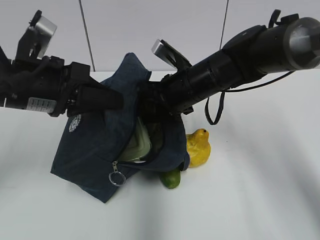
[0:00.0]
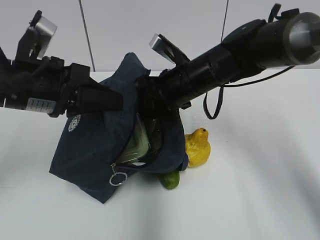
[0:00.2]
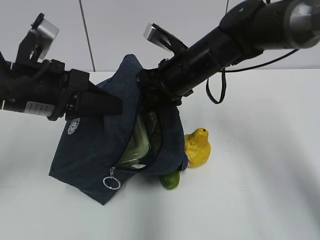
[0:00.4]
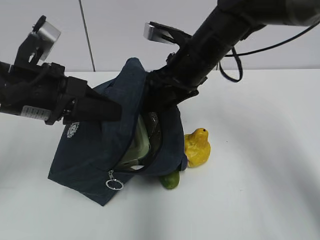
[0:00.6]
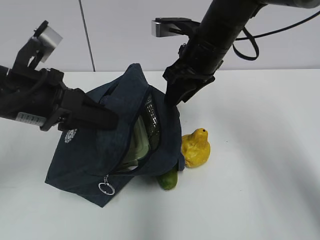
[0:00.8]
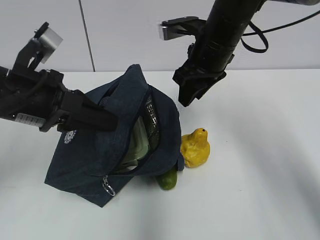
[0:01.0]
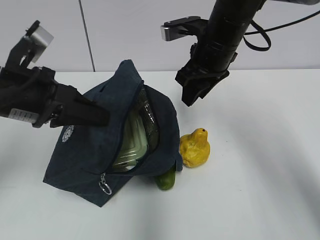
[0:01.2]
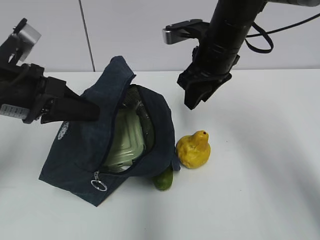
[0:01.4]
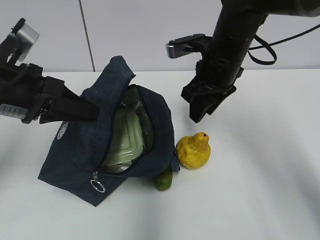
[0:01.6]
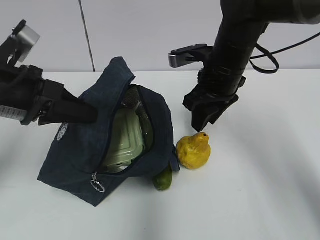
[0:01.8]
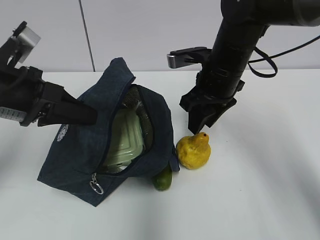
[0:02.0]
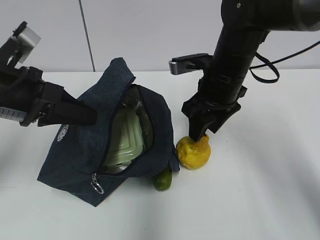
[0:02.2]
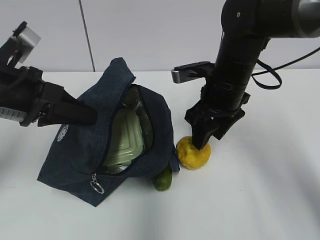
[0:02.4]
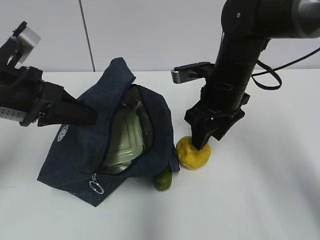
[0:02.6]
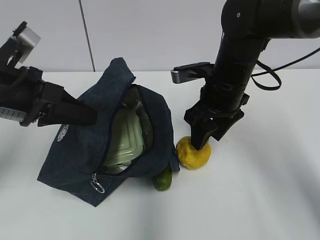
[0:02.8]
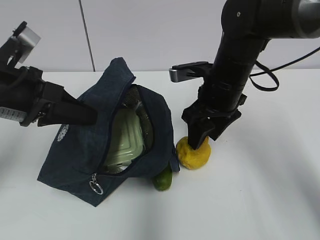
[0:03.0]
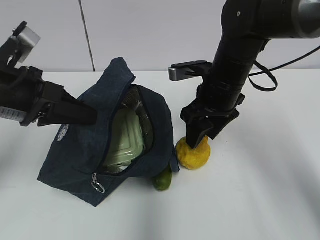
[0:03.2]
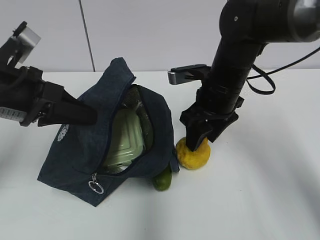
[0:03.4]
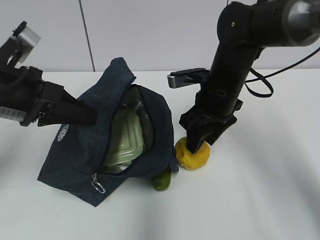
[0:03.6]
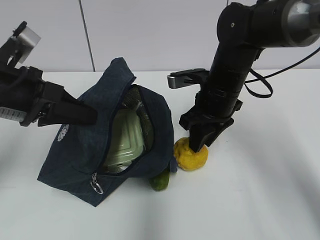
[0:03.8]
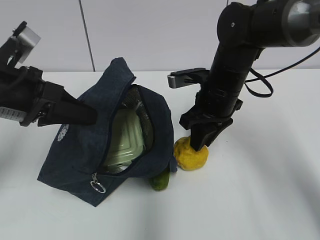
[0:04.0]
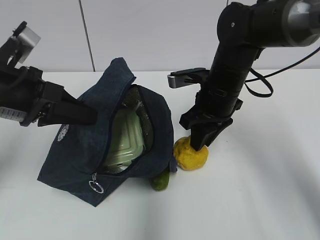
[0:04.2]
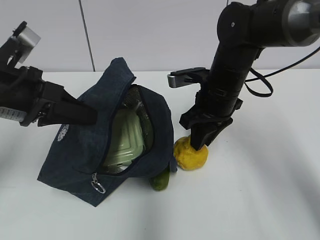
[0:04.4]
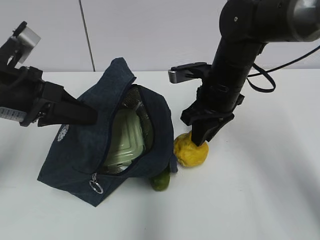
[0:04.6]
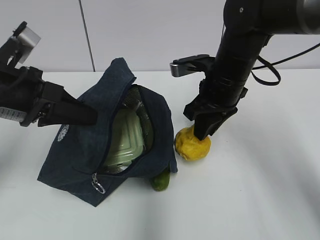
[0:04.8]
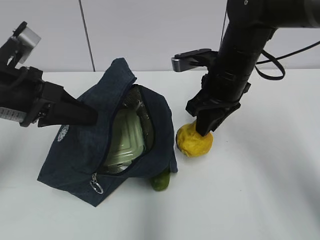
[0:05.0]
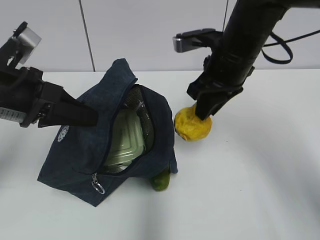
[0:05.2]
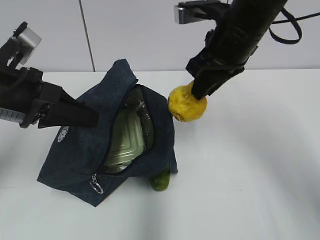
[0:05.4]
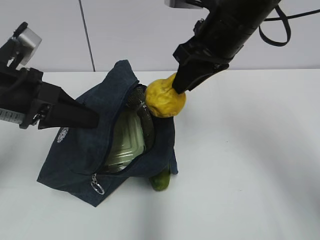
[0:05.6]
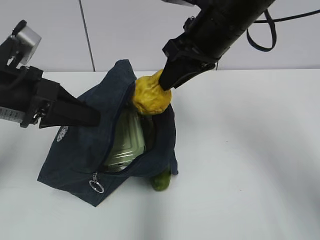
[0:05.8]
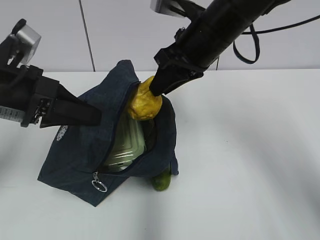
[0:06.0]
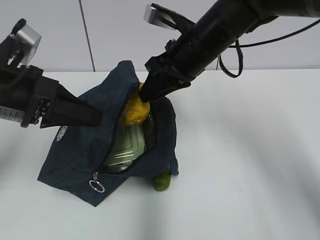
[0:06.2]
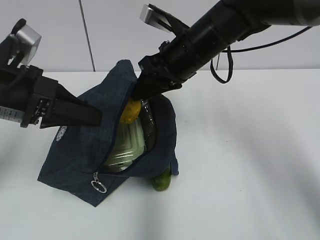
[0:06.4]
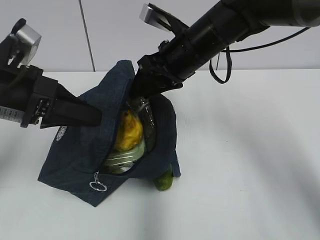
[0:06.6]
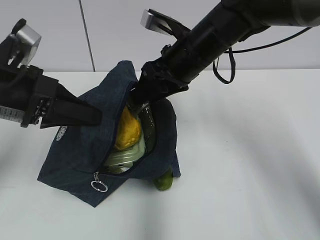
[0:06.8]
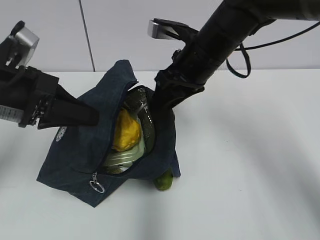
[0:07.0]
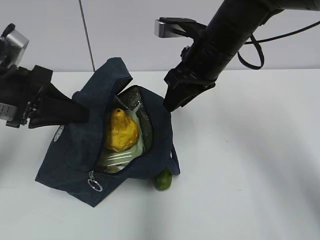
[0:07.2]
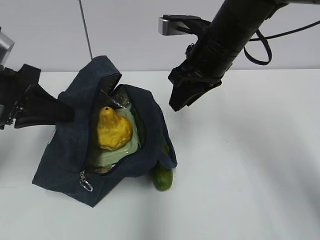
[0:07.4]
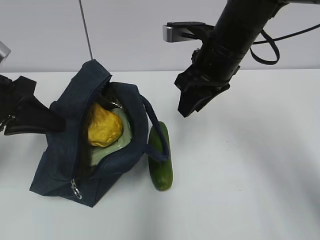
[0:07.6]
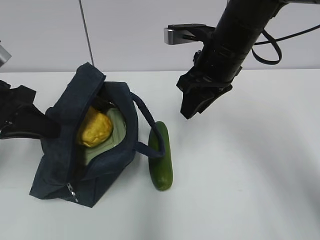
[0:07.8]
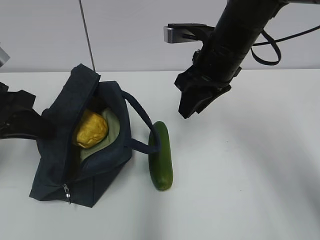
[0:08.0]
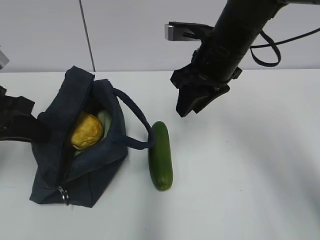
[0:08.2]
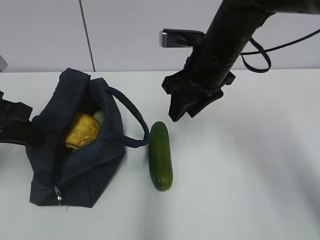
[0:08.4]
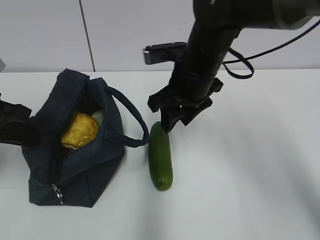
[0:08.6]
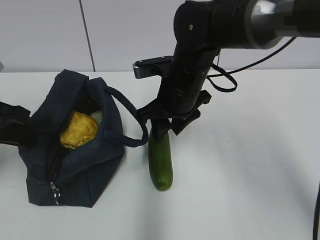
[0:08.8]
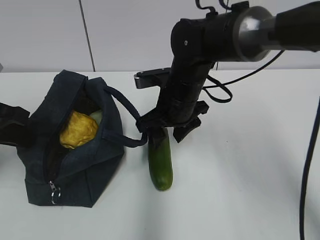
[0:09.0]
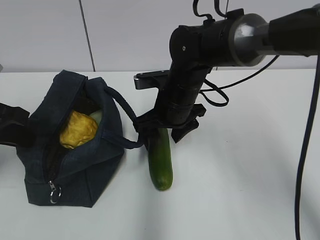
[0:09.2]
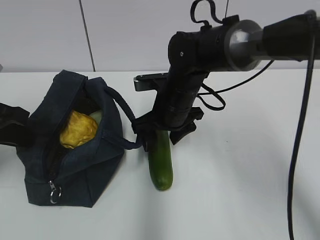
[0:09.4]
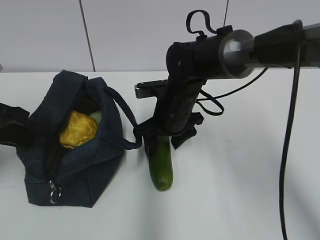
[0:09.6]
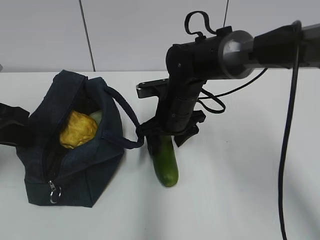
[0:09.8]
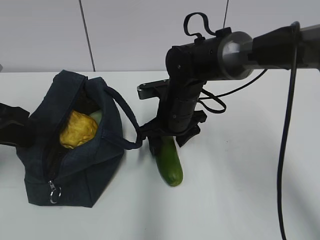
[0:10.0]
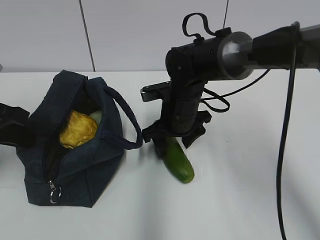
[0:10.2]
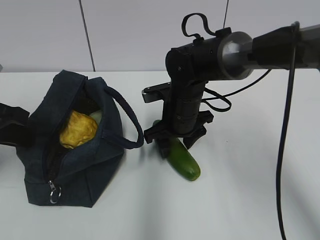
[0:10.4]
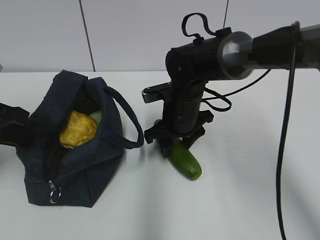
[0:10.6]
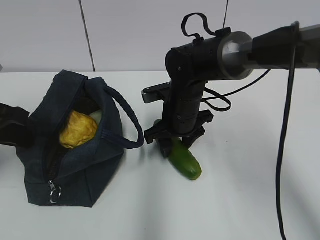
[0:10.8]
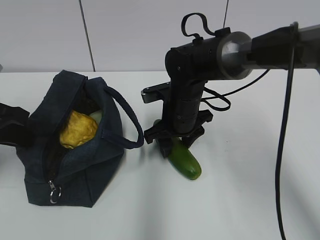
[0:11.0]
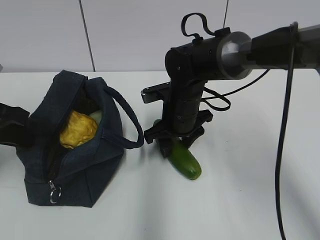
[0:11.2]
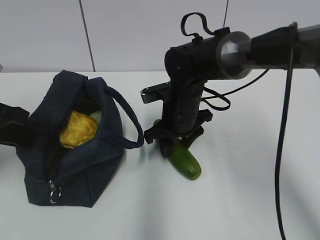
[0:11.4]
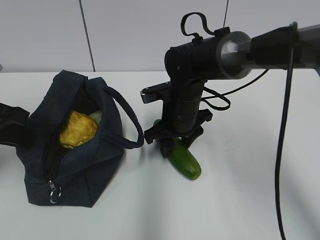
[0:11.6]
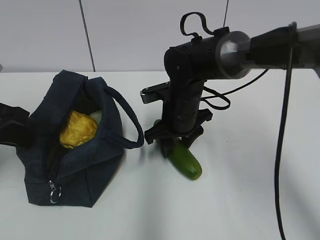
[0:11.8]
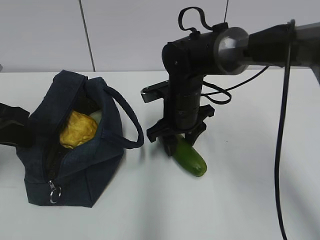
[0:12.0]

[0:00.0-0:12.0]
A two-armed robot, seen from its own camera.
Step, 0:00.4 to 0:04.4: Grab the pear with your right hand.
Step, 0:04.6 to 0:06.6: Place it into the bag with your right hand.
Step, 0:06.8 to 0:11.8: Grab the cucumber with your right hand.
0:00.0 to 0:01.6: The right gripper shifts by roughly 5 cm.
0:01.6 to 0:03.0: There are only small adjustments of the grippers.
0:03.0 to 0:04.4: The right gripper closes.
0:04.4 to 0:06.0: The right gripper travels upward by some 10 cm.
0:06.0 to 0:07.6: The left gripper ends up roughly 5 cm from where it was.
0:07.6 to 0:09.0: The right gripper moves downward and to the left, some 10 cm.
0:09.0 to 0:12.0: The grippers make only small movements.

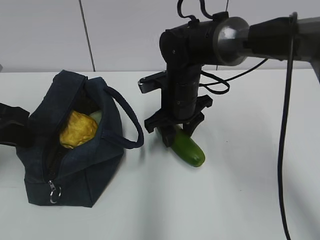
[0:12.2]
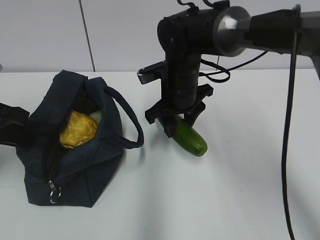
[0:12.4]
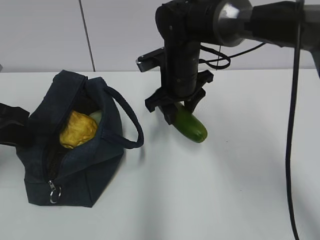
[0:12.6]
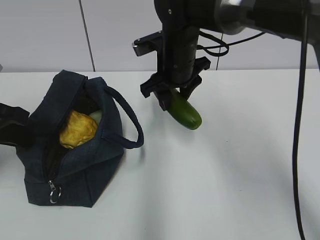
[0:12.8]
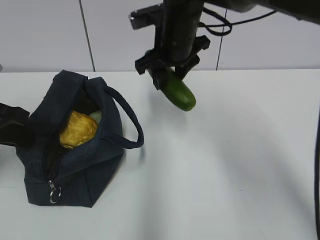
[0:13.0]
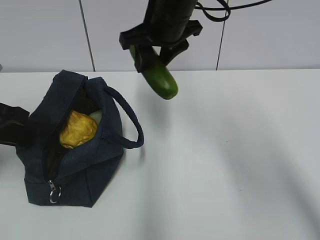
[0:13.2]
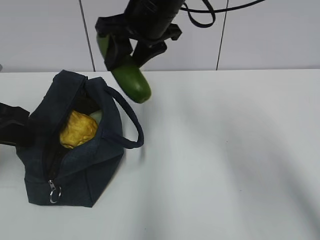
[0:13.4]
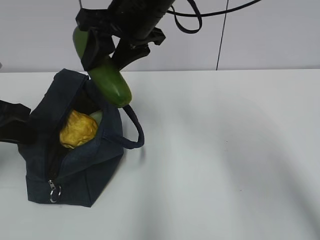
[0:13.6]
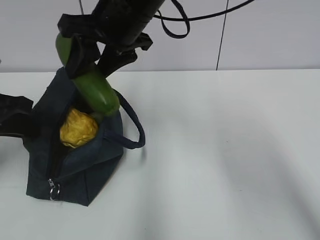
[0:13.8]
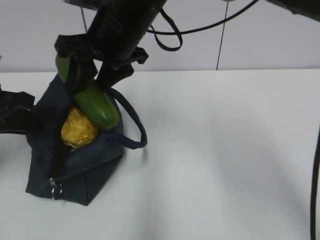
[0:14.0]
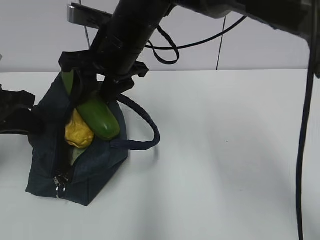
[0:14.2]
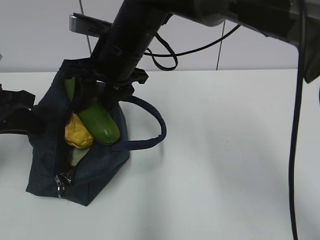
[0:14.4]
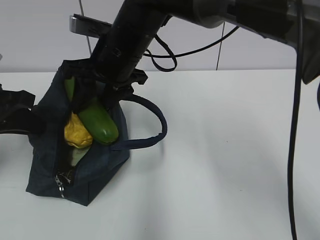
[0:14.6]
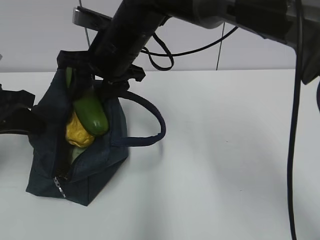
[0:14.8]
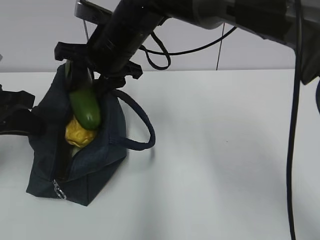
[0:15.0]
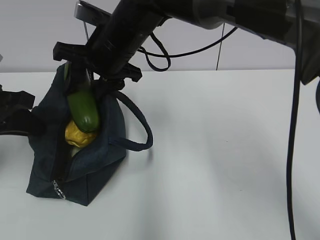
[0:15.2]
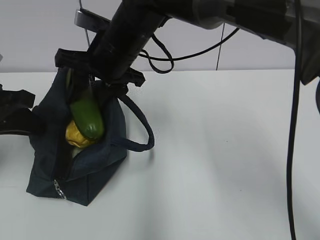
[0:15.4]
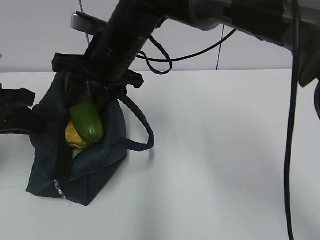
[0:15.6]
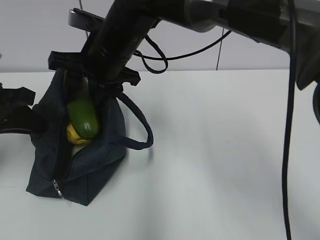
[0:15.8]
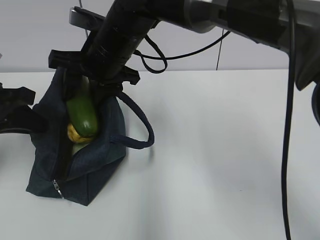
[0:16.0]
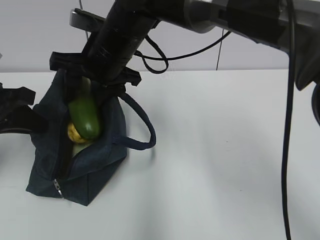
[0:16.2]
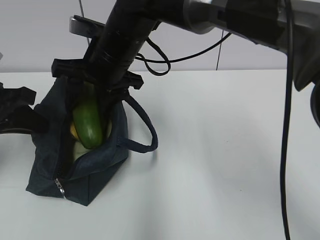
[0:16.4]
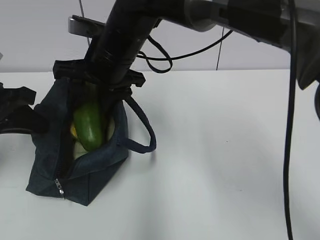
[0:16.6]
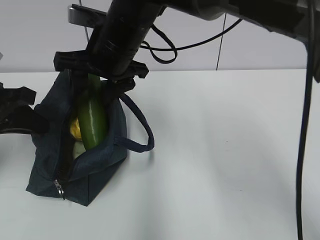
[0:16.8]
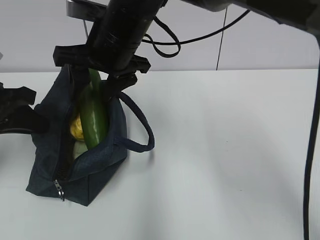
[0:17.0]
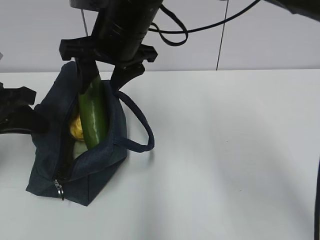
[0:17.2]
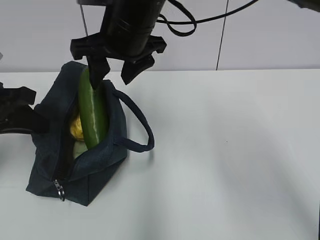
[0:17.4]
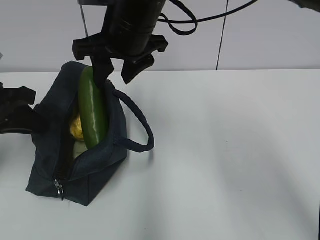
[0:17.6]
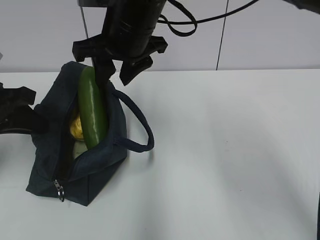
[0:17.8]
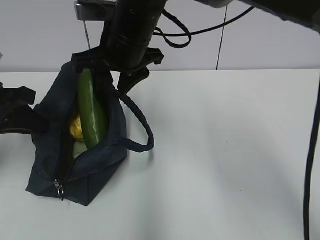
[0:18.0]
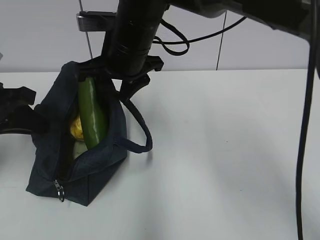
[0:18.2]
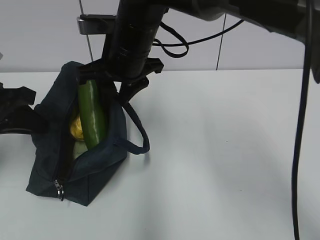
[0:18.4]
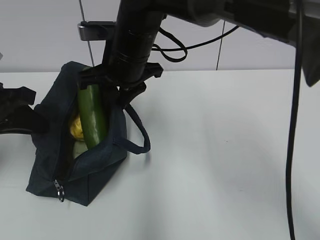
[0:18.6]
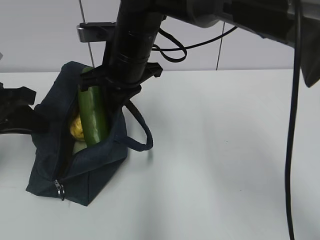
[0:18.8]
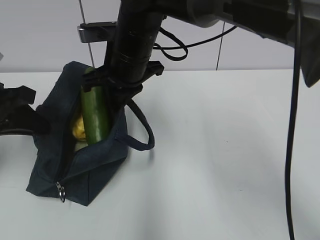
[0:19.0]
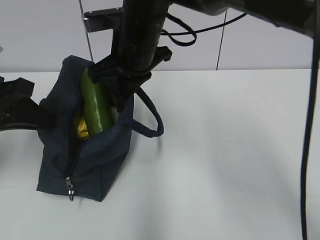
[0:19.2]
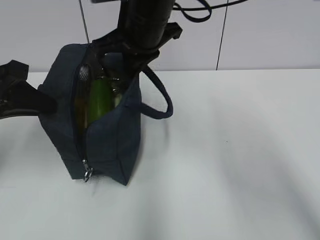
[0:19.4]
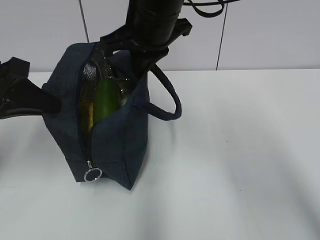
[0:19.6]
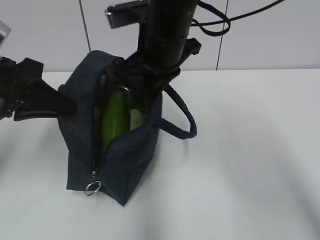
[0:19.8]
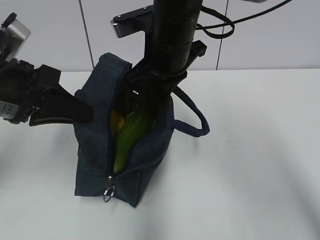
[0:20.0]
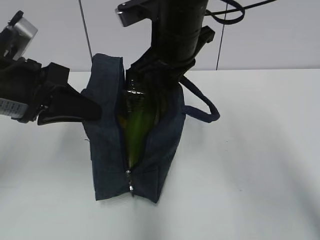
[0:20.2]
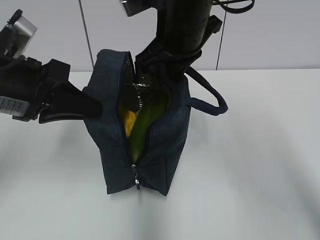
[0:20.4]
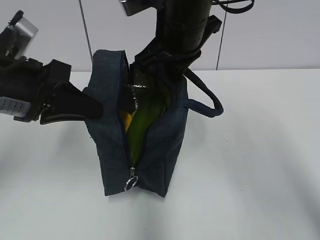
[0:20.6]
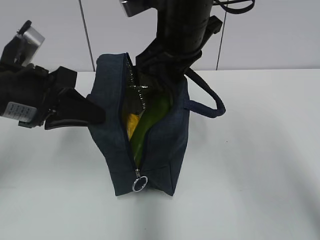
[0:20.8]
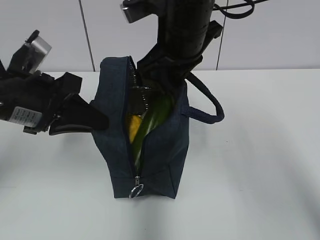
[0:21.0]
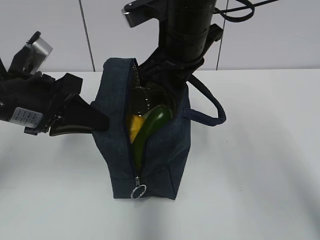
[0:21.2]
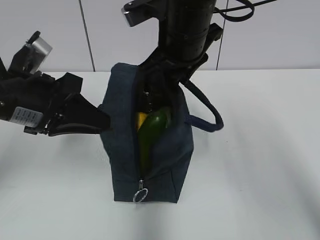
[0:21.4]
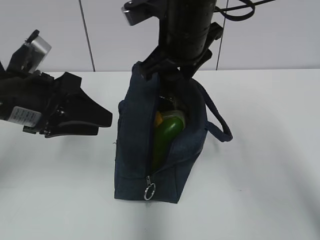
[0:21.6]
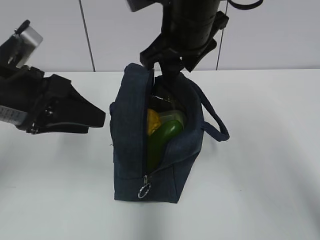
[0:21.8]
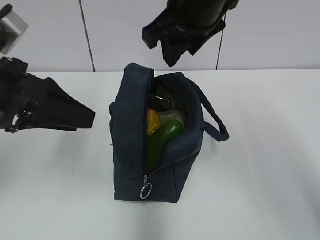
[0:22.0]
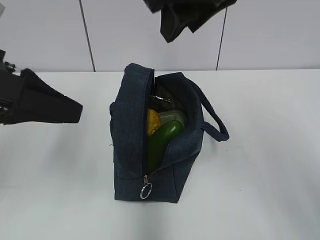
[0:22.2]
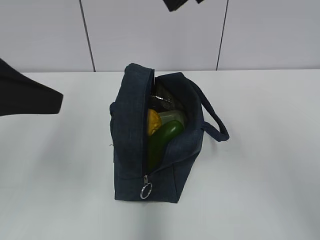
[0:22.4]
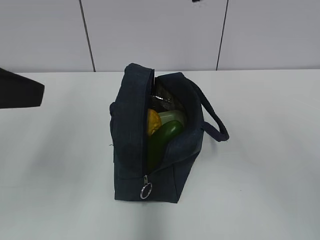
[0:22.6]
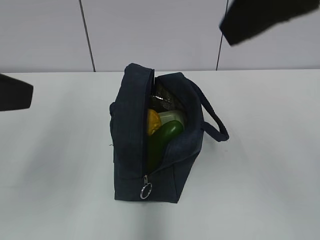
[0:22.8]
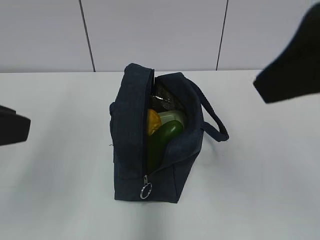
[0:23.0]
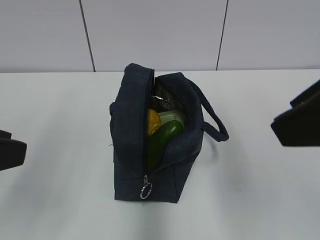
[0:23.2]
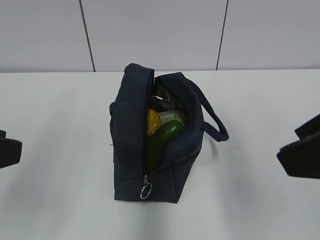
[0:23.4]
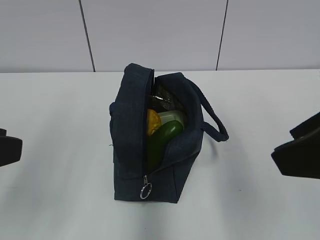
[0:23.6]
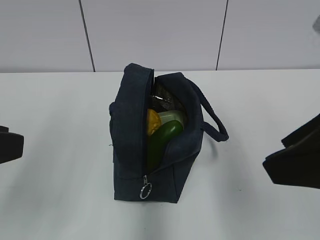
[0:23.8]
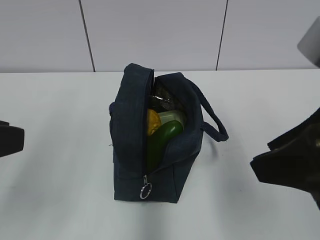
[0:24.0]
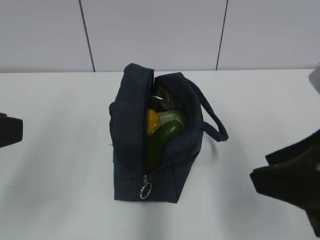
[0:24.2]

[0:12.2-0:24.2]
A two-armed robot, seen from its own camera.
Step, 0:17.2 to 0:19.0: Grab the lunch bag with your right hand.
Step, 0:19.2 to 0:21.6: Move the lunch bag to the right.
0:12.2 to 0:13.8: The right gripper heads upward, covering approximately 15 cm.
0:13.8 to 0:15.2: The right gripper is displaced downward by some 5 cm.
0:15.2 to 0:16.6: The grippers stay close to where they were, moving slightly.
0:16.6 to 0:18.2: The grippers move only a little.
0:18.2 to 0:19.8: The left gripper shifts by approximately 5 cm; the right gripper ends up approximately 5 cm from where it was, and closes.
0:21.2 to 0:22.6: The grippers both shift upward and backward by roughly 15 cm. The right gripper opens, while the left gripper opens its fingers.
0:22.6 to 0:24.2: The right gripper shifts approximately 20 cm downward and backward. The left gripper changes place by roughly 5 cm.
